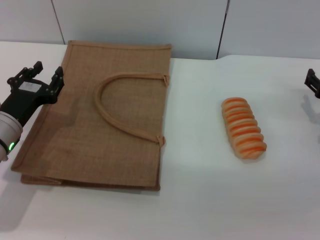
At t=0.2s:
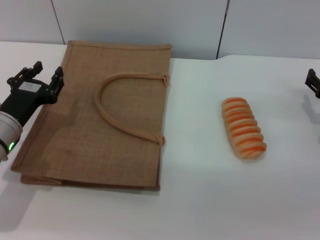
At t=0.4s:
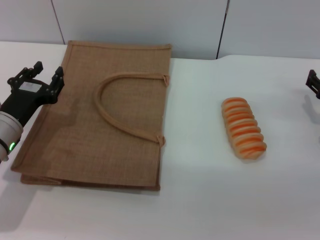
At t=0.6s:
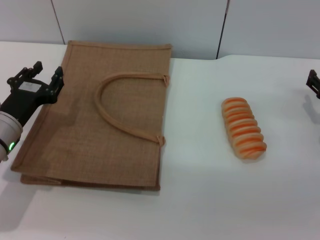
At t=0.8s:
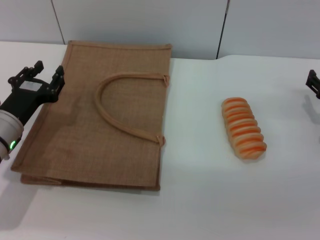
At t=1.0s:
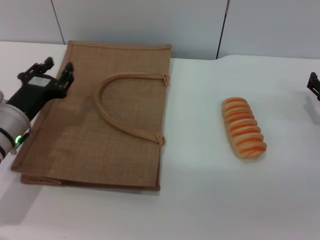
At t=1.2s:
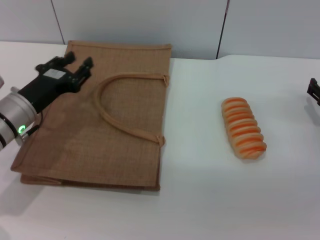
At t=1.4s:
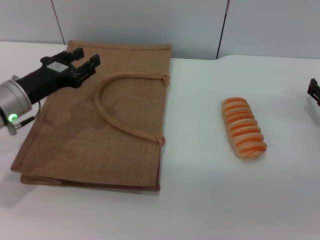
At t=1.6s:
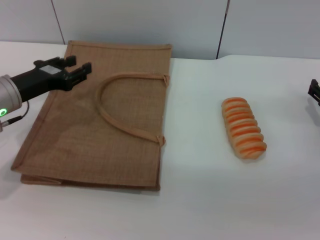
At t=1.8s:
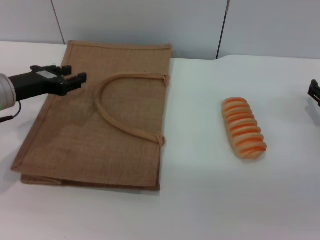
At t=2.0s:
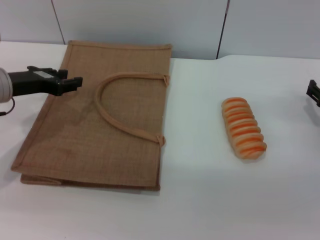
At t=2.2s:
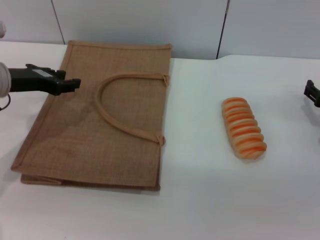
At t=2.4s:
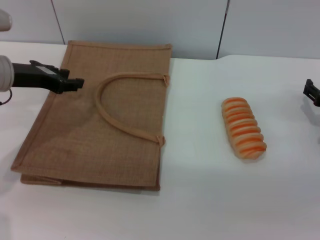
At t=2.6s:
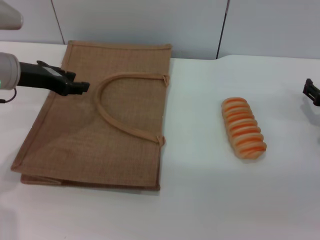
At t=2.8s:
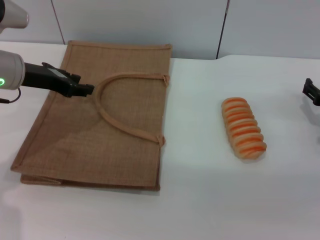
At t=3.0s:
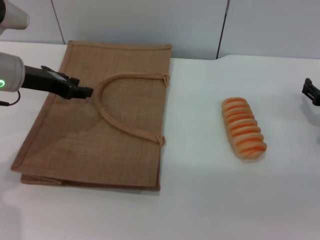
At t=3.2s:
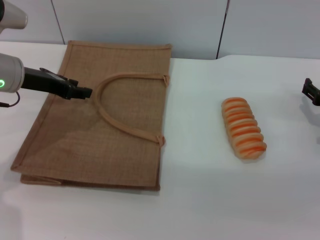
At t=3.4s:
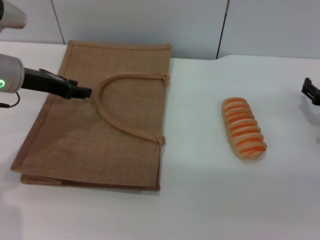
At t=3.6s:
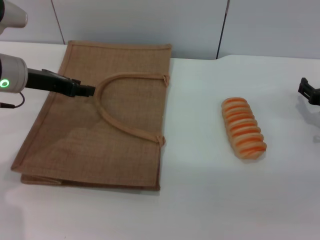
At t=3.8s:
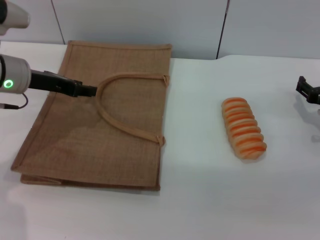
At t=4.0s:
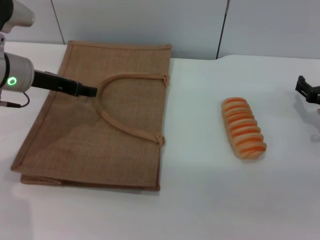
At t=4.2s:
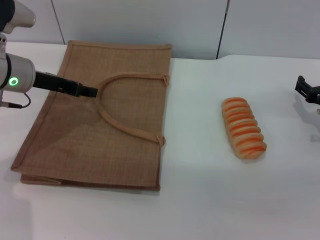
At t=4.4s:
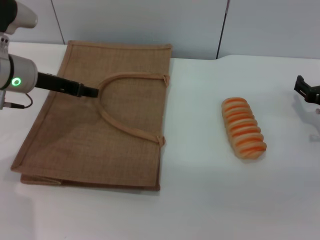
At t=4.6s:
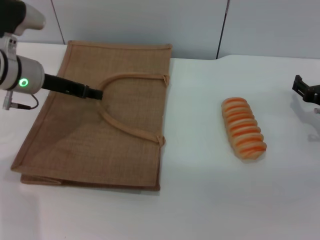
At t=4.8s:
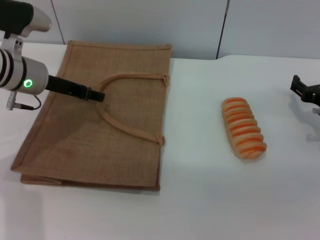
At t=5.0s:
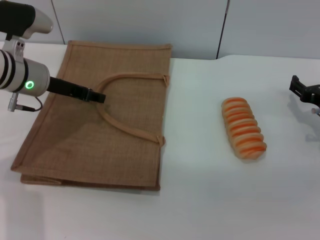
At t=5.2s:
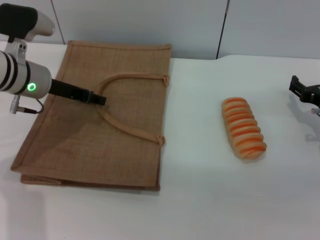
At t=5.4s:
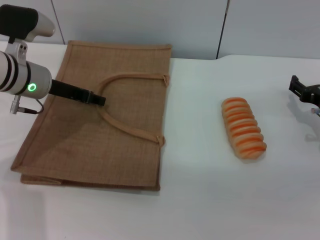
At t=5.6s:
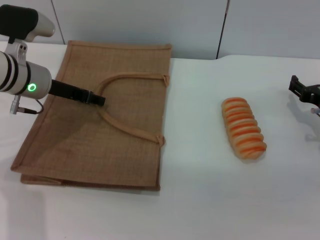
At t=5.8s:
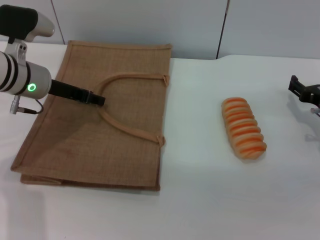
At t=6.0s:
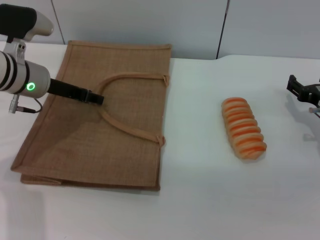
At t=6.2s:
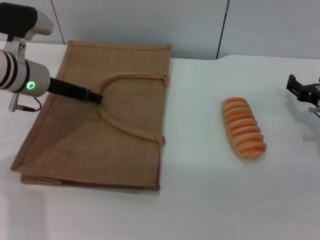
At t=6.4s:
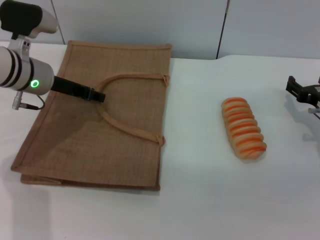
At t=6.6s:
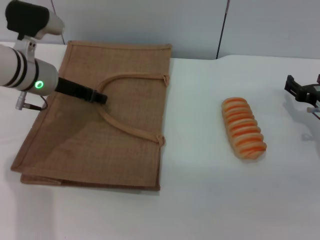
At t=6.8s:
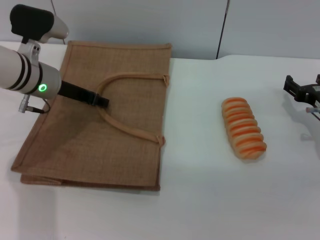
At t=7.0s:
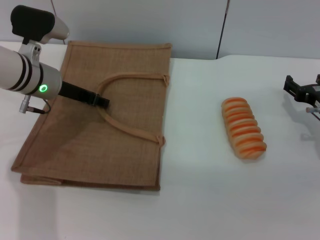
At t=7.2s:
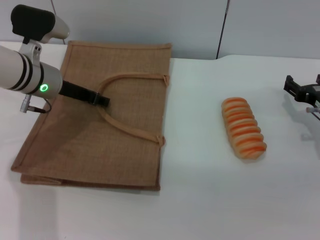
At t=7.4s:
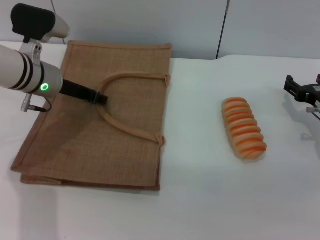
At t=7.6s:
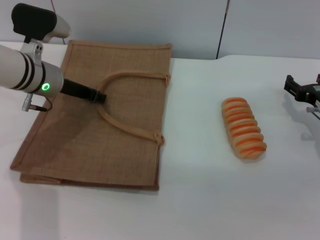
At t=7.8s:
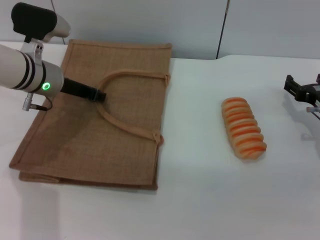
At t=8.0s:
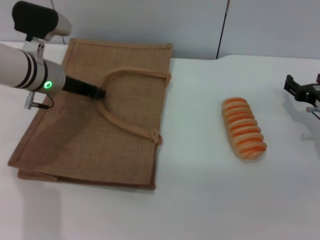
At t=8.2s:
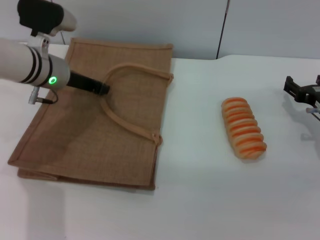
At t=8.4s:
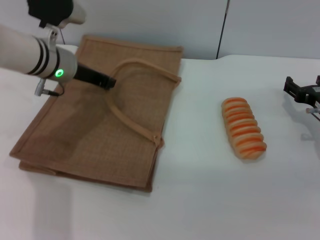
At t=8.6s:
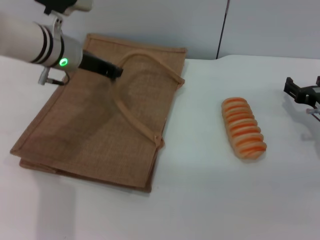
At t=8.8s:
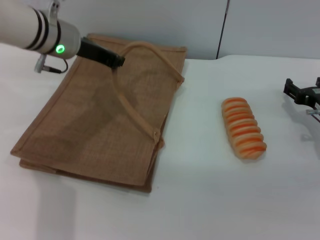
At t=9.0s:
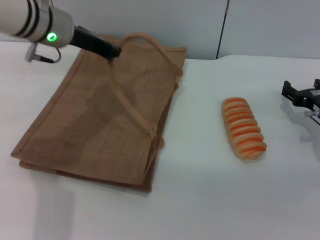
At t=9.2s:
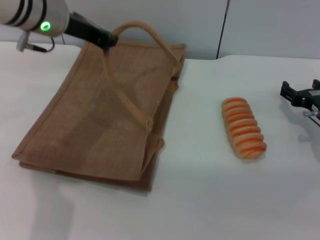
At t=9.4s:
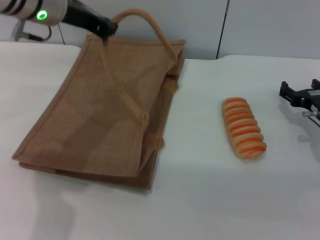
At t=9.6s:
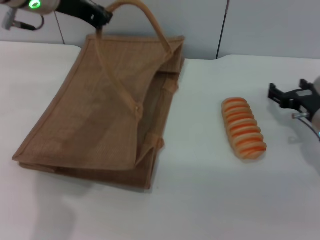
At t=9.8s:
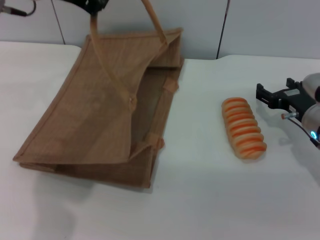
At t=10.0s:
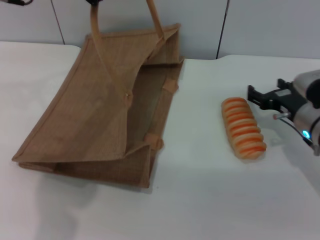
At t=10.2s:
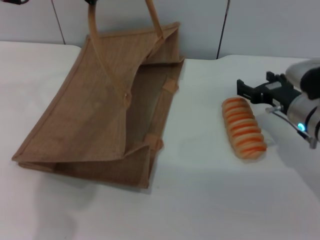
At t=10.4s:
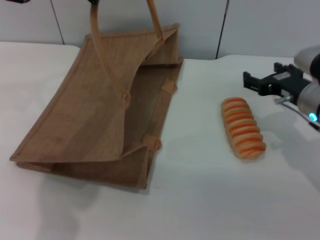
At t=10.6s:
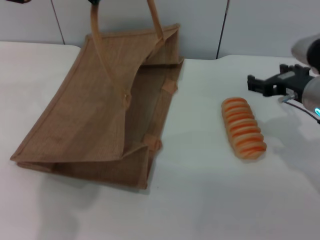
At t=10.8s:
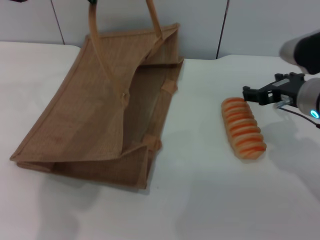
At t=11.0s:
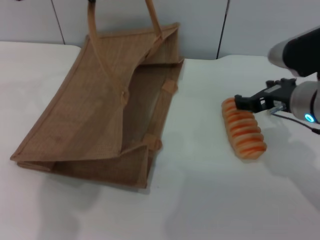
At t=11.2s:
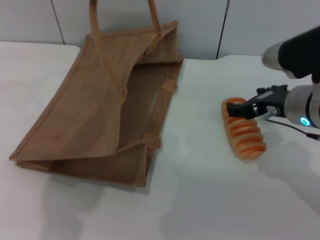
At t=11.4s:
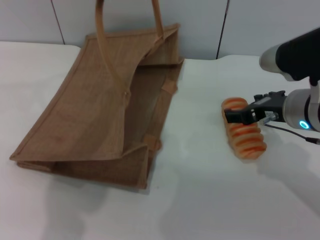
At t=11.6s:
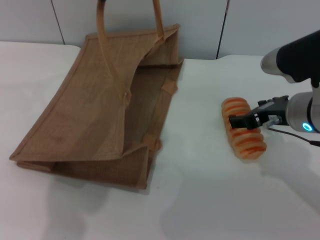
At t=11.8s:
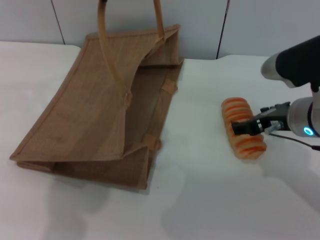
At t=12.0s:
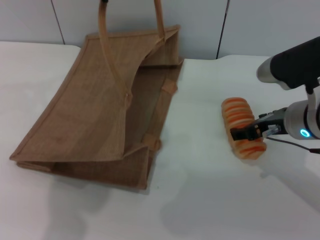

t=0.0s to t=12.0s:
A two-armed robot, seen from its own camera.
Task of the whole recording: pick up the bread from the table and place it in the brown handbag.
Step, t=0.0s to t=9.2s: Lift the woven bag with the left gripper to open it.
t=0.0s to t=1.6s: The left gripper is displaced upward by roughly 5 cm.
t=1.6s to t=3.0s: The left gripper travels upward by about 5 cm.
t=3.0s to t=6.0s: The grippers make only small movements.
t=6.0s to t=7.6s: The left gripper closes its fingers.
t=7.6s to t=9.0s: The left gripper moves upward, approximately 10 cm, and closes up.
t=9.0s to t=10.4s: The right gripper travels upward and to the left by some 10 cm, while the left gripper shifts about 10 cm upward.
t=10.4s to t=12.0s: The right gripper ends up approximately 5 cm from where it was.

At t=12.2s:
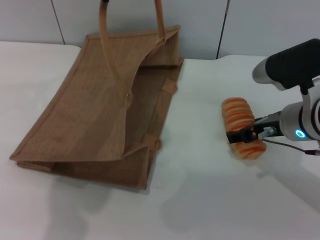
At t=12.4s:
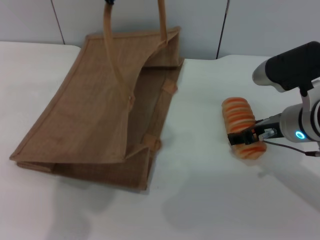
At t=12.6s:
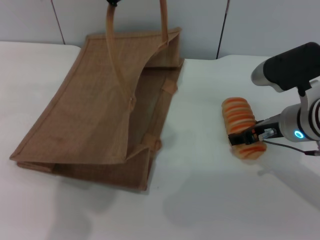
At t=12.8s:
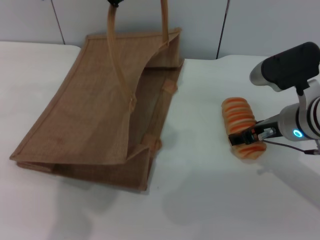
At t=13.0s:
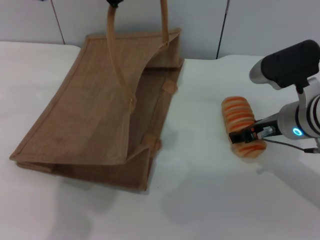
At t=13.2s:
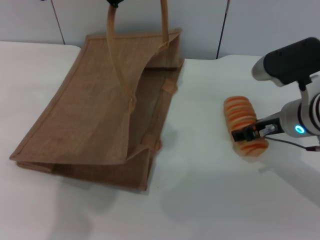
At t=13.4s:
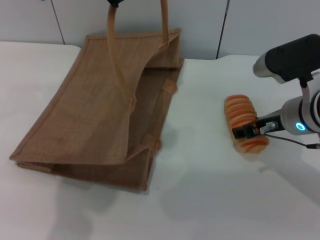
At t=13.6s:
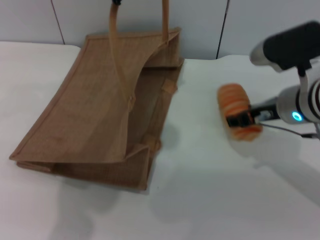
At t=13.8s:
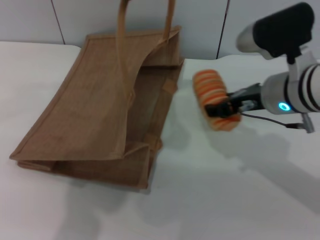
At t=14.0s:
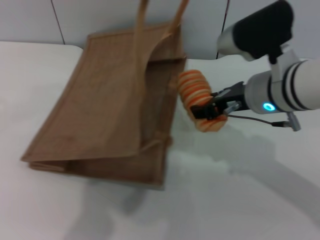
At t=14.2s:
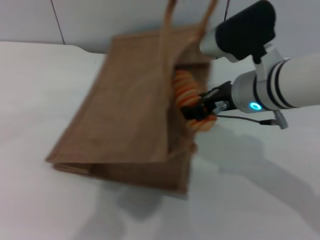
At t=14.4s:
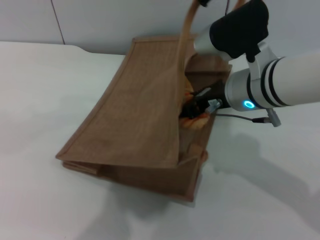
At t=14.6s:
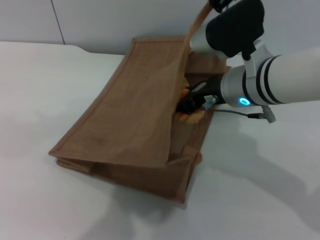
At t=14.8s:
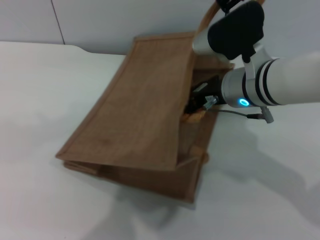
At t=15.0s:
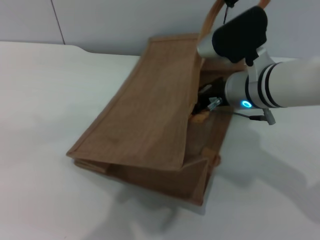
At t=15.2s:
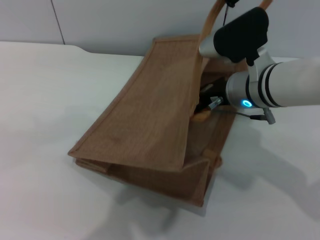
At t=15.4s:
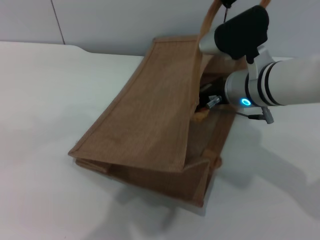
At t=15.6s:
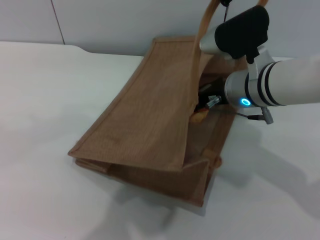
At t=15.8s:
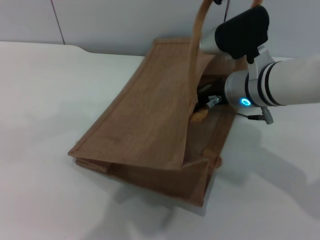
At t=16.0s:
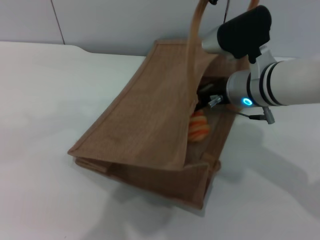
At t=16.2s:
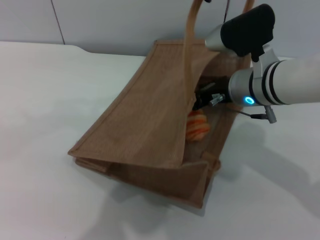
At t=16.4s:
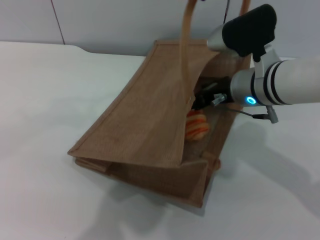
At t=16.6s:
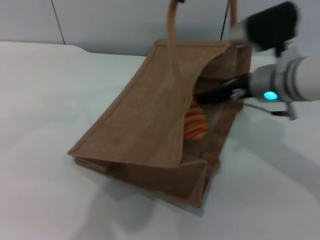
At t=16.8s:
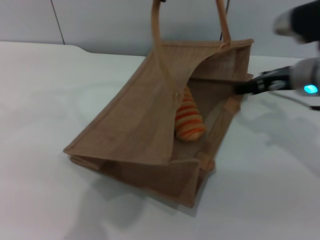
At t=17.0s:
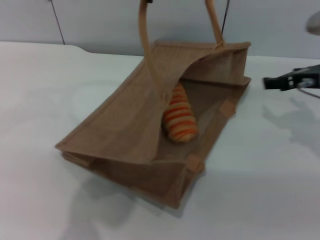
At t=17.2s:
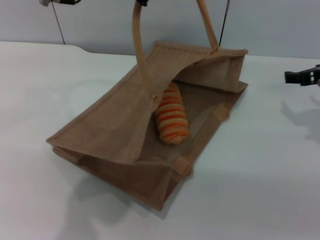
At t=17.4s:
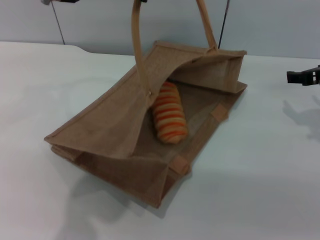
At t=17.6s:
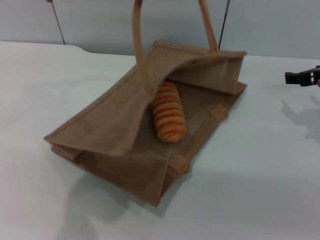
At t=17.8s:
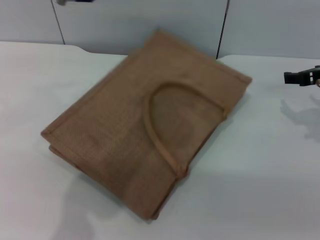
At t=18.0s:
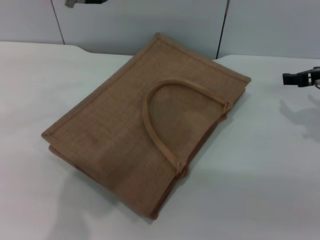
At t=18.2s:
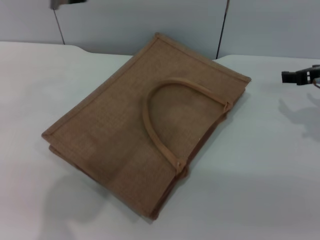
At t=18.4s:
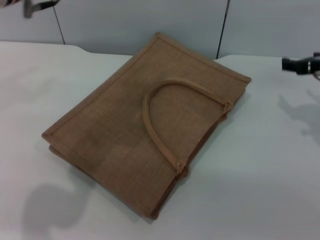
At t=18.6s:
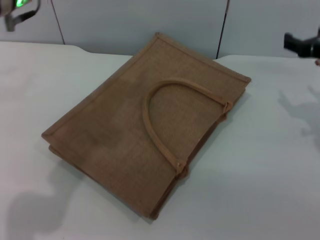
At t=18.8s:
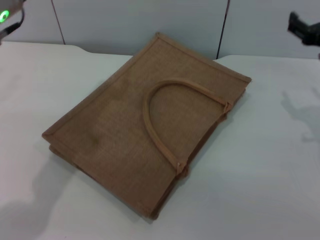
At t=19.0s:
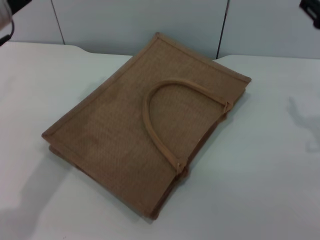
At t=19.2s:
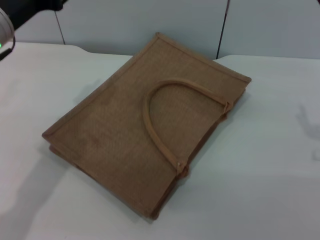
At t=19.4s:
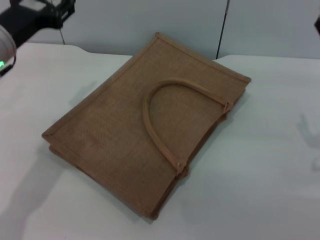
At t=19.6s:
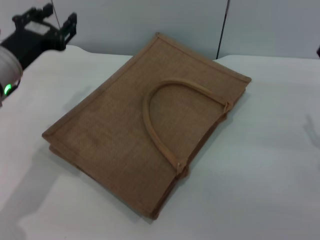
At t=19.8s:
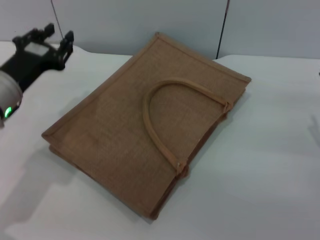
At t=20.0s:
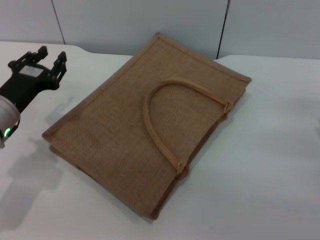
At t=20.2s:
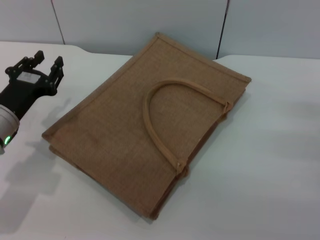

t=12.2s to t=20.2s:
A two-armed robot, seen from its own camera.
Task of the whole recording: pick up the bread from the table and place it in the brown handbag.
Step, t=13.8s to t=17.0s: Place the bread into the woven bag with the right gripper.
Step, t=17.2s to t=18.2s: Lower the woven bag with the left gripper to close it.
t=12.2s to t=13.8s: The right gripper shifts by about 5 cm, and closes up.
t=13.8s to t=15.4s: The right gripper shifts by approximately 5 cm, and closes. Meanwhile the left gripper shifts approximately 10 cm to the right.
t=15.4s to t=17.0s: The right gripper travels to the right by some 15 cm, and opens its fingers; the left gripper goes about 10 cm to the left.
t=17.0s to t=18.6s: The left gripper heads to the left and downward, covering approximately 10 cm, and opens up.
t=18.6s to t=20.2s: The left gripper heads downward, covering about 20 cm; the right gripper goes approximately 15 cm downward, backward and to the right.
